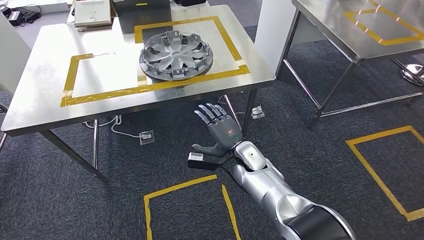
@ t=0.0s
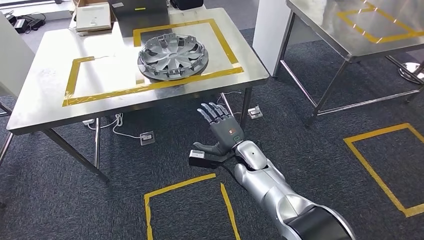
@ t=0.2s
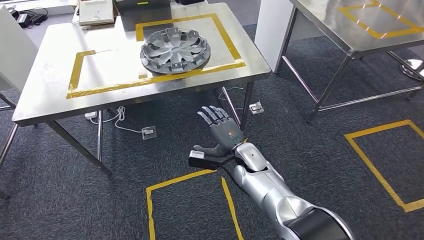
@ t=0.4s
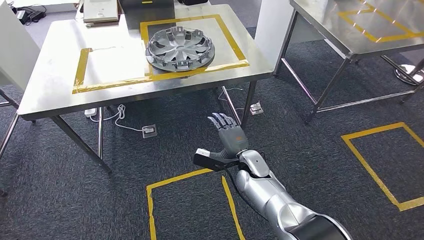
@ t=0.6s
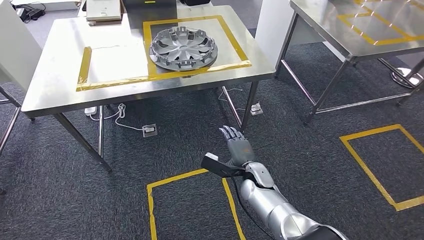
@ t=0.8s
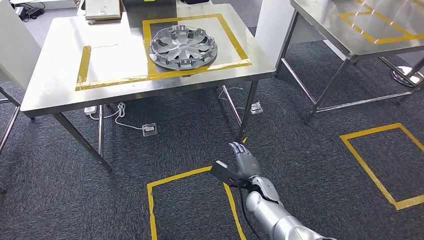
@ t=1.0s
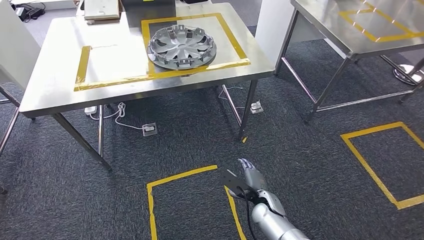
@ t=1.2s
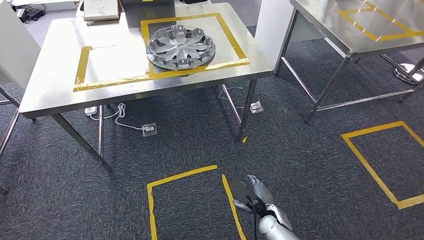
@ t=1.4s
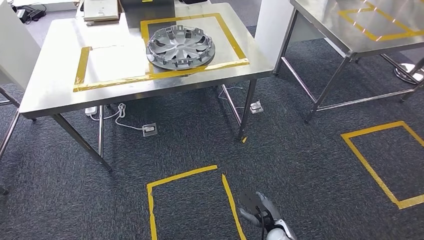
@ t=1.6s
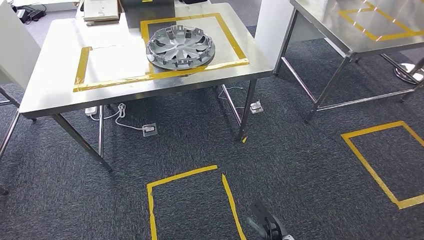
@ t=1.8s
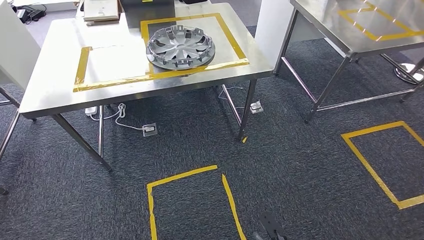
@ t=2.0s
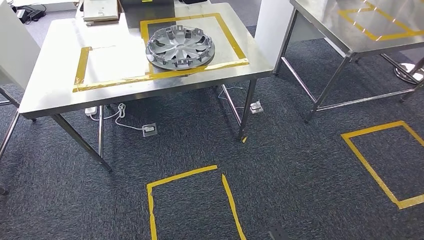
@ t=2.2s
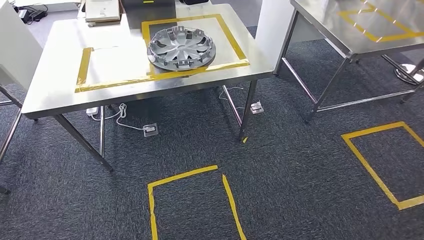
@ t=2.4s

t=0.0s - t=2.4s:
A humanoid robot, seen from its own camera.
Step, t=0.0s - t=2.2s: Move to the initial position of the workbench.
t=1.2s - t=2.4s: The right hand is displaced backward by about 25 cm.
